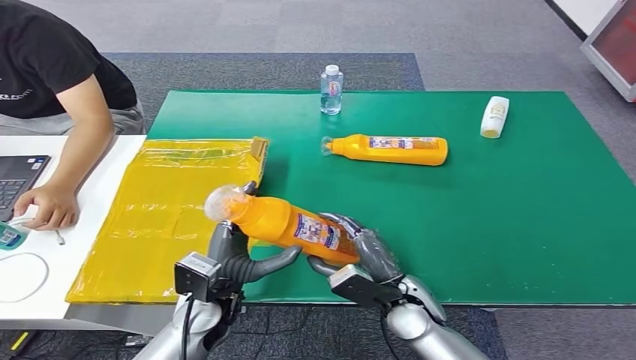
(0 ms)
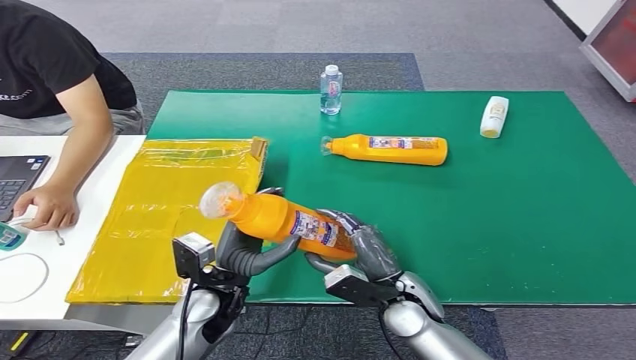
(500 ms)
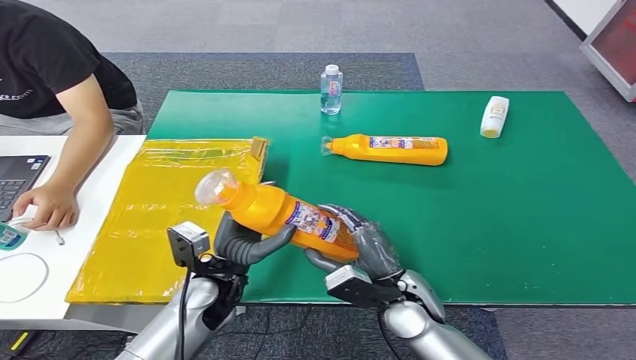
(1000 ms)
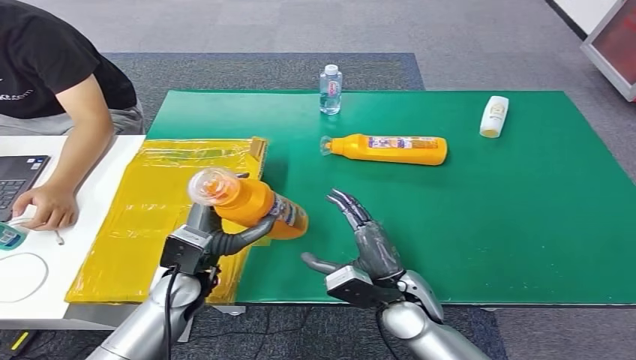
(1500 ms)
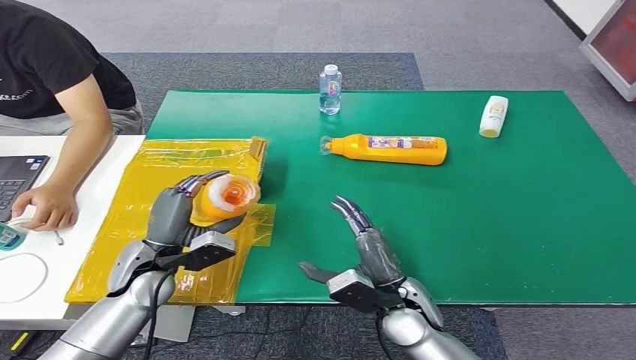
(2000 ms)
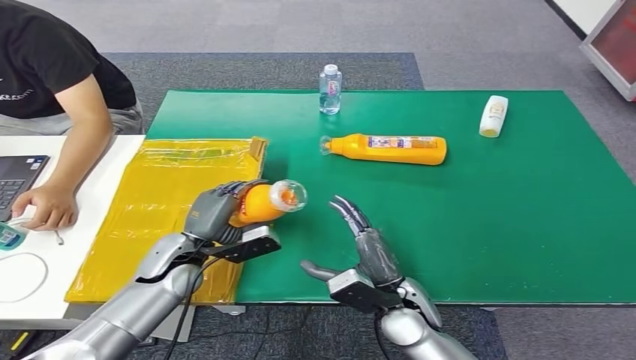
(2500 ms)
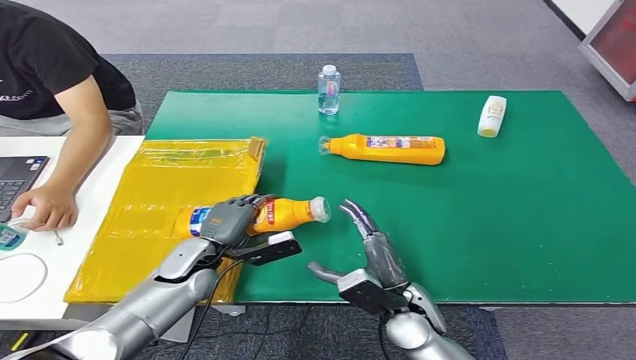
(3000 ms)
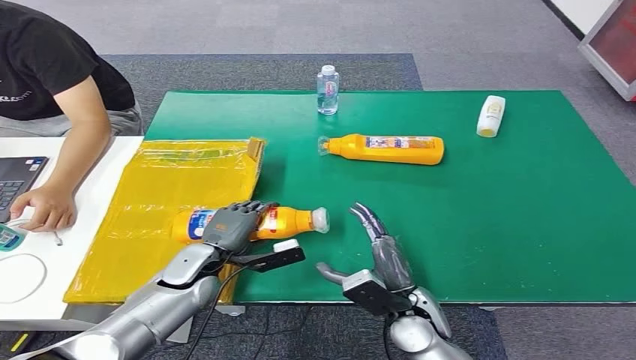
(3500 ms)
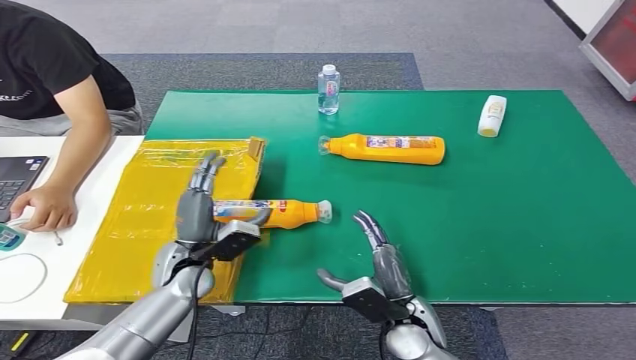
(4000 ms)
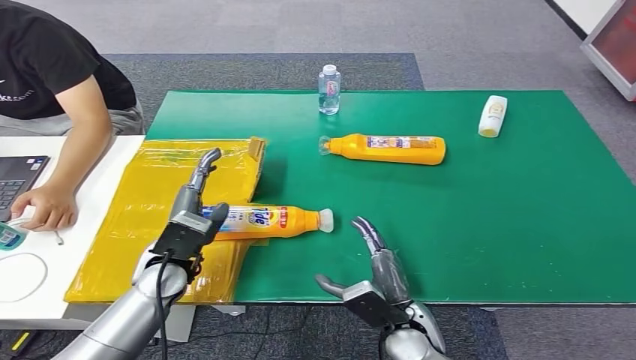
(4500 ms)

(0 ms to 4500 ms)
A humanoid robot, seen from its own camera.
Step, 0 ms - 4500 ms: Turn the bottle to the front side.
0 ms - 2000 ms: The left hand travels to the left and forward by some 10 cm.
